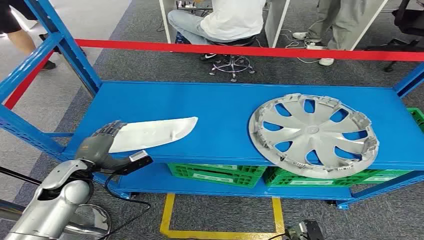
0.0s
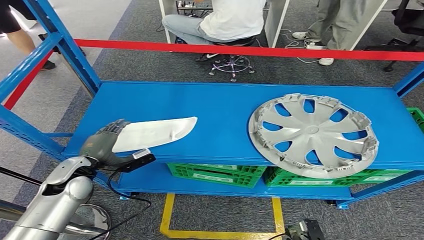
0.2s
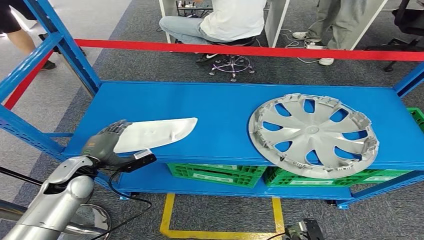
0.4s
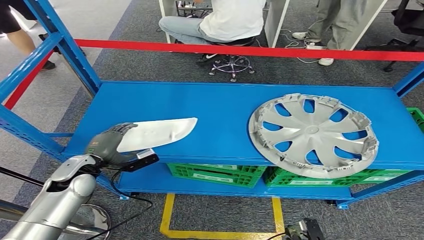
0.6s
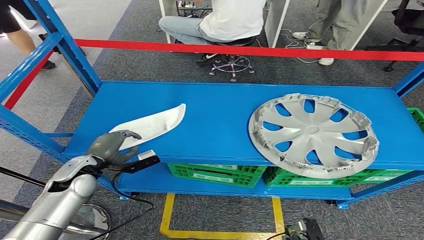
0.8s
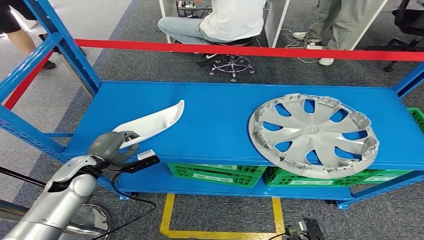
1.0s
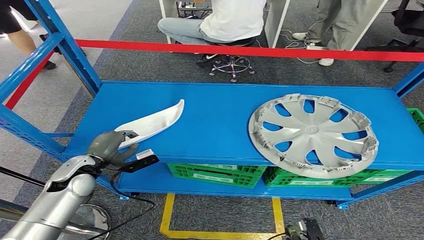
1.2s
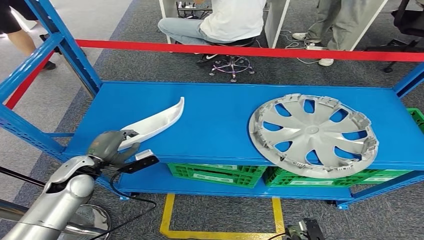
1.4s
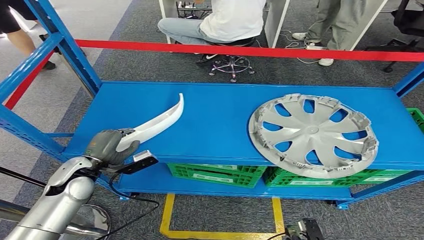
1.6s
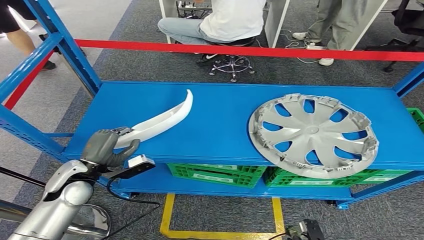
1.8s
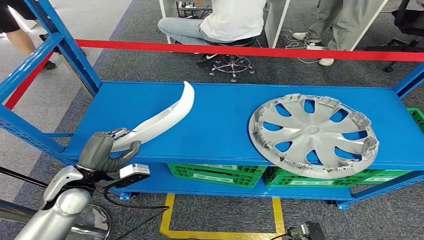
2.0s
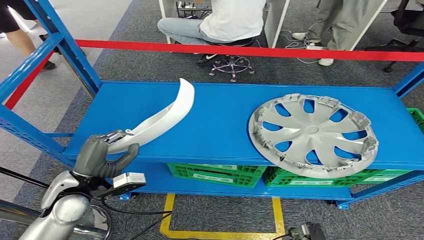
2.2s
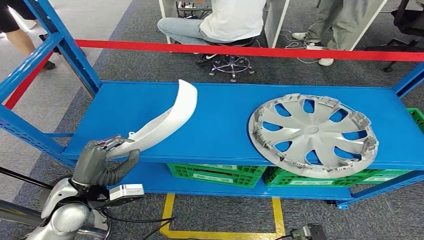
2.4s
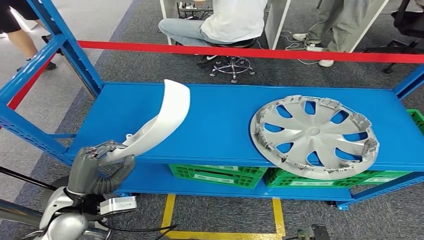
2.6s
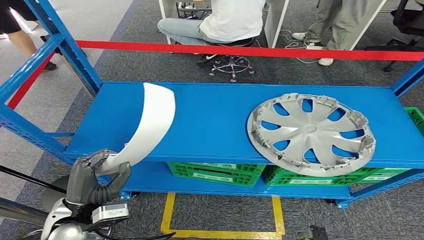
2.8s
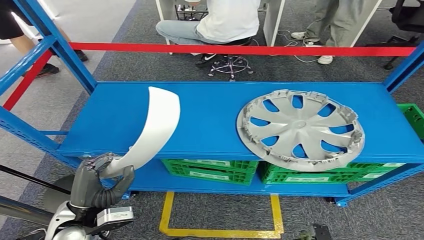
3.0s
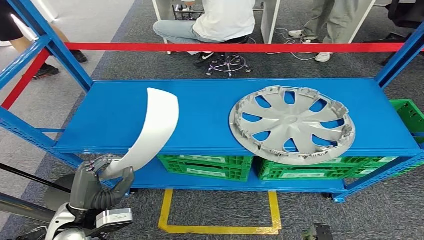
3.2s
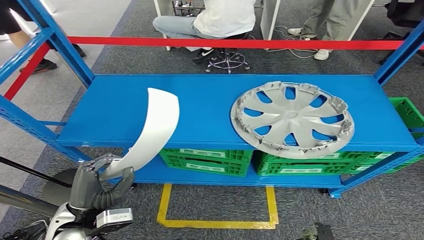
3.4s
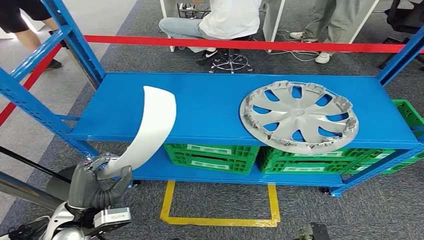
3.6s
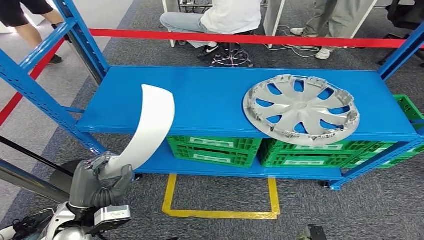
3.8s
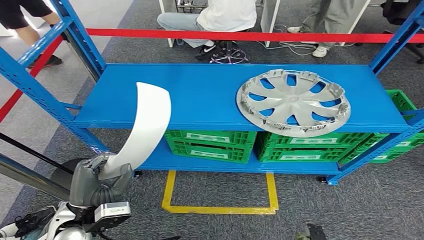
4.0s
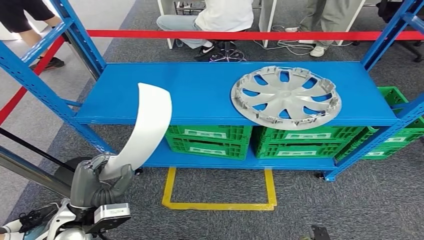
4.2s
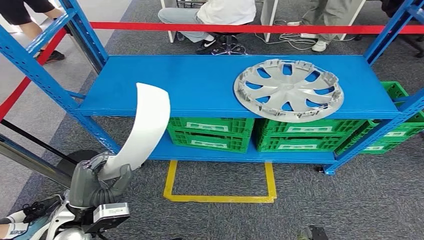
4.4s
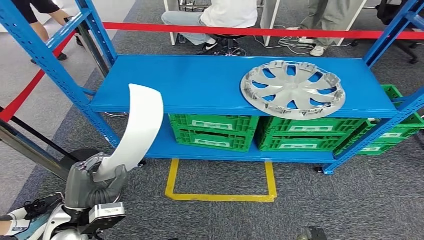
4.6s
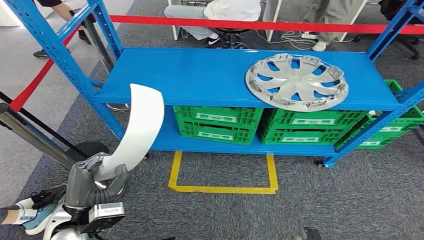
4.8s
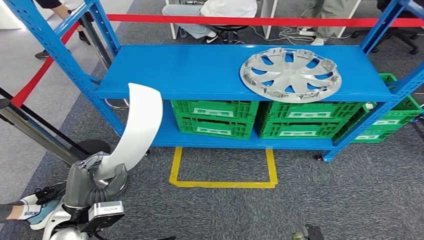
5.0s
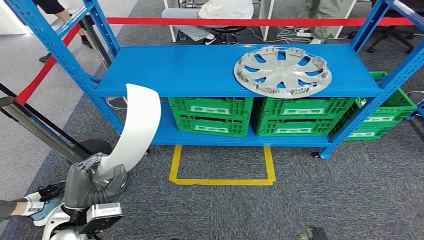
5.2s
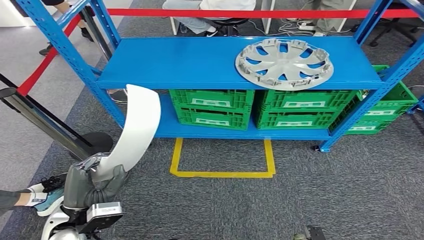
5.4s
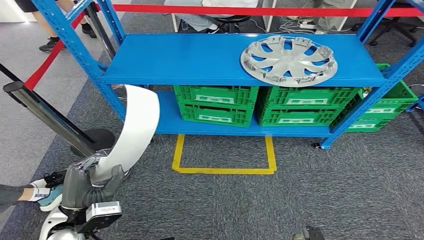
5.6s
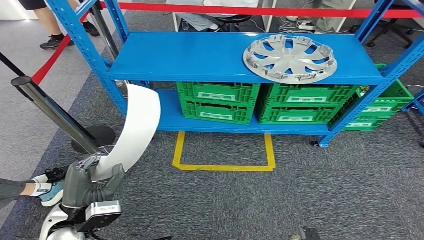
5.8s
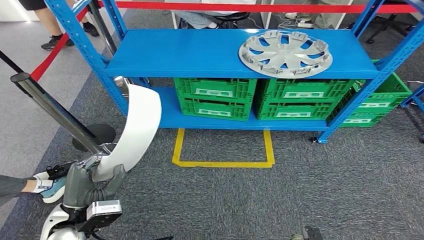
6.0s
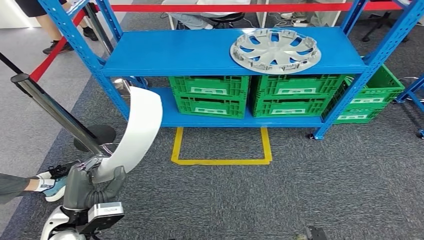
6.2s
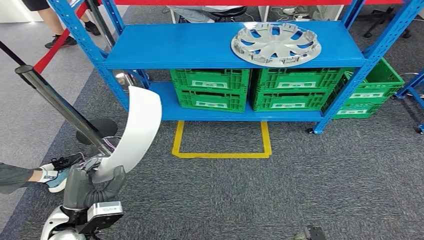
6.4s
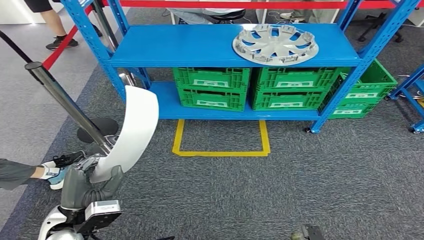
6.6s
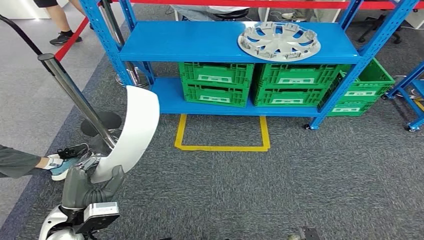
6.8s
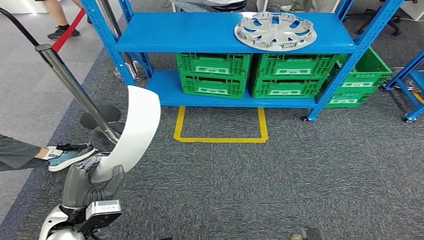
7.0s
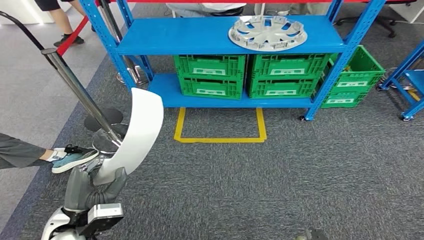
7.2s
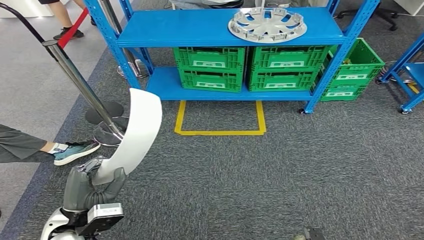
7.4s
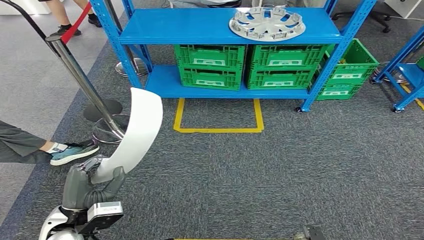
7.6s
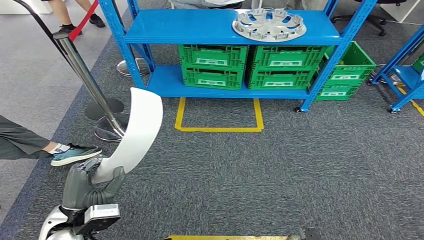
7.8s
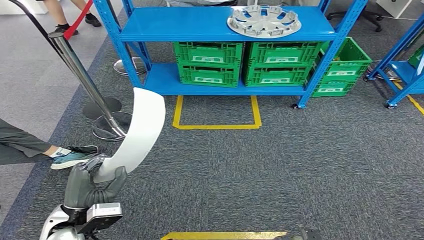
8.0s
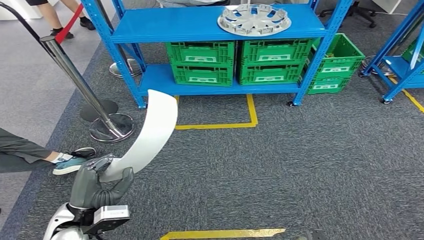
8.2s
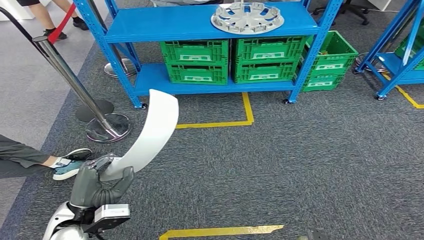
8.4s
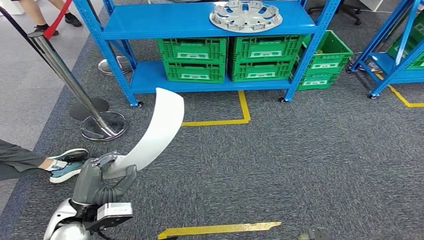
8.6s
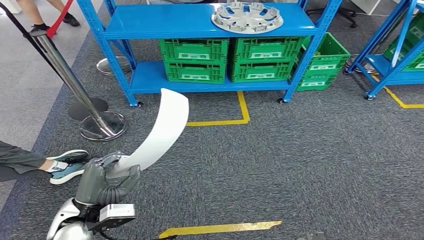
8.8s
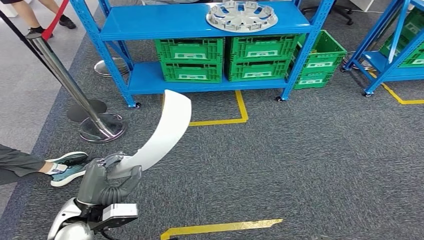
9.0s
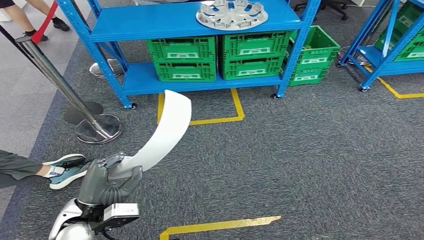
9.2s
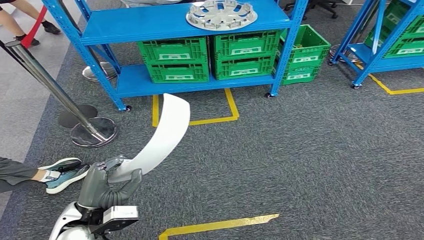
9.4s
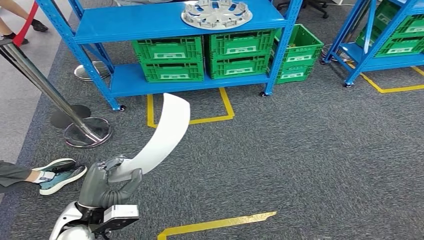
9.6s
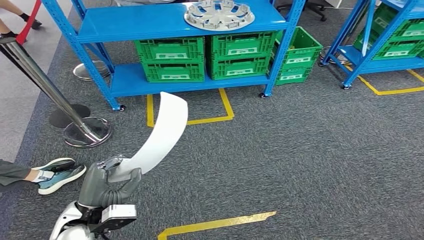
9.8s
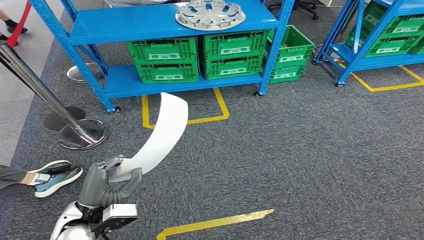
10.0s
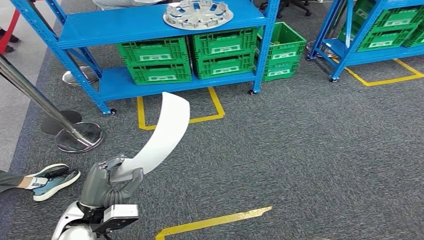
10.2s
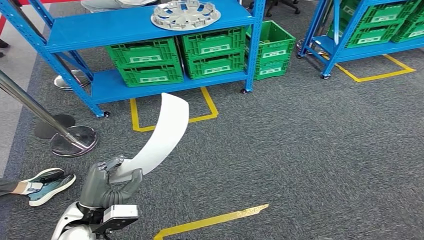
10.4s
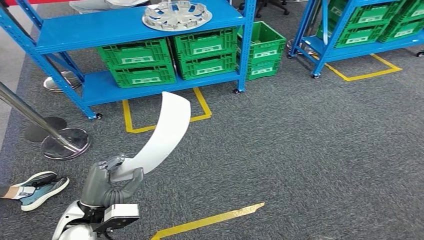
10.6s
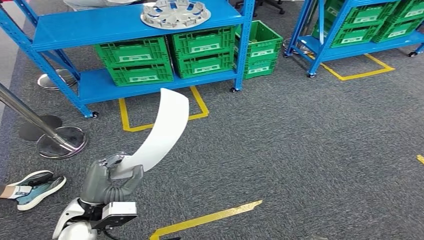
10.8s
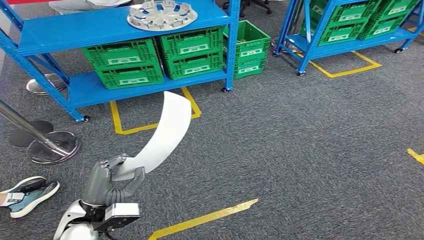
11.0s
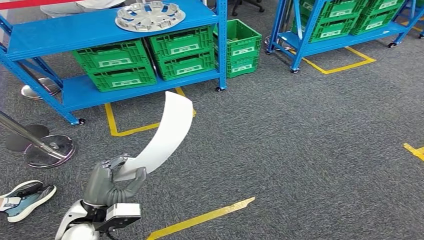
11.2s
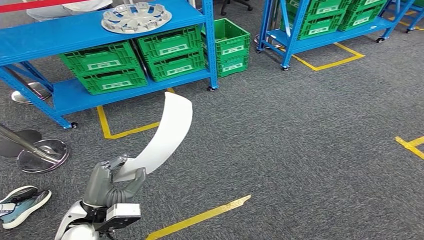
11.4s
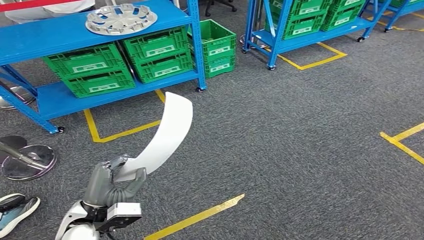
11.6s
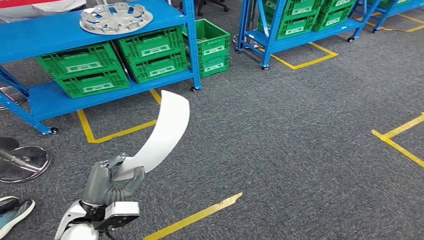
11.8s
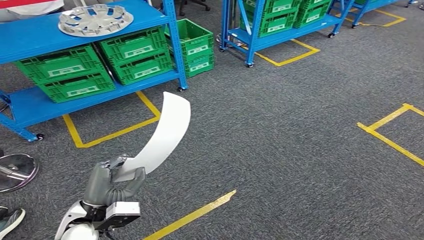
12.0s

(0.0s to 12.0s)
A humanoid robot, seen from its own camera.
Step, 0.0s - 5.4s: Pick up the small parts from the shelf.

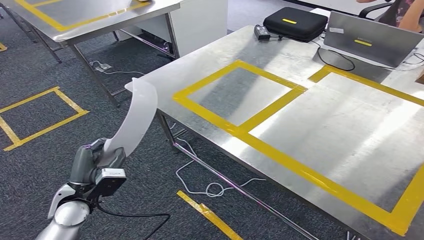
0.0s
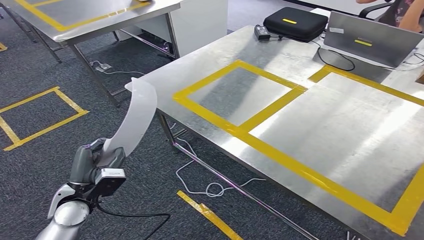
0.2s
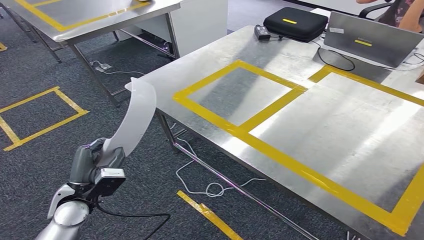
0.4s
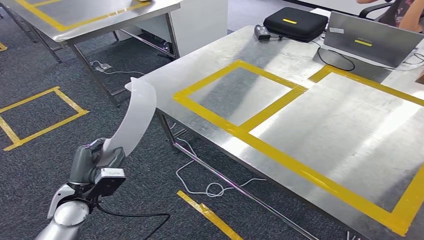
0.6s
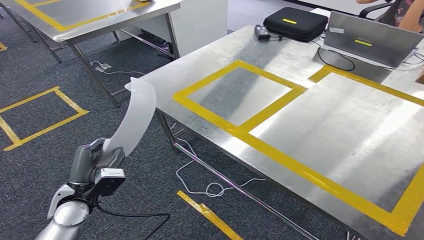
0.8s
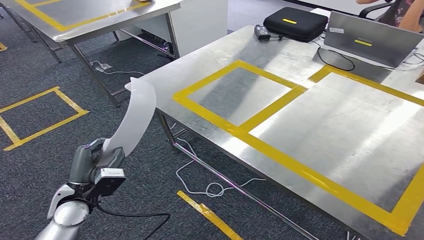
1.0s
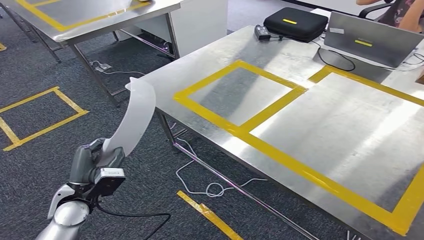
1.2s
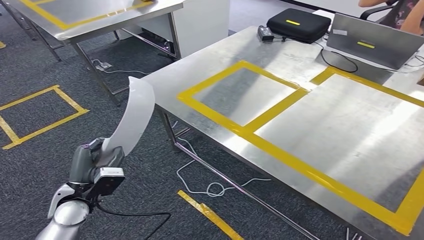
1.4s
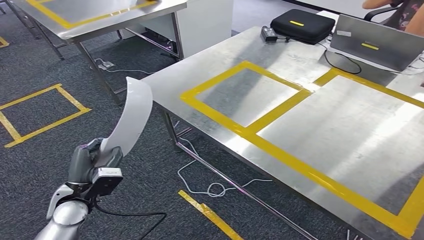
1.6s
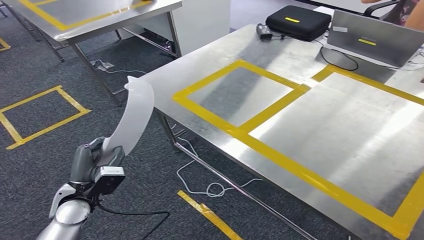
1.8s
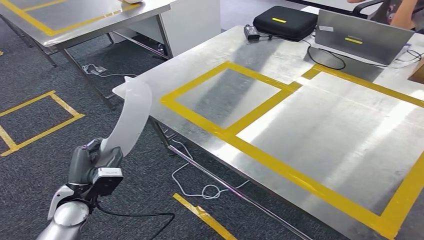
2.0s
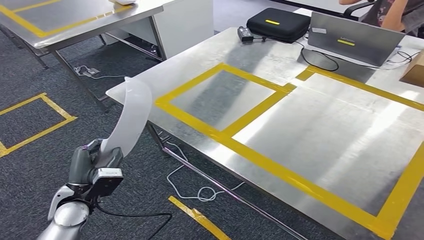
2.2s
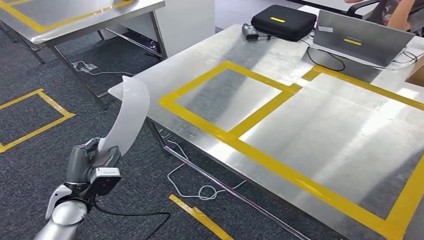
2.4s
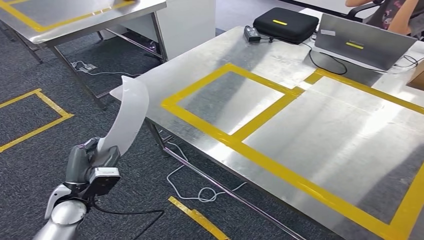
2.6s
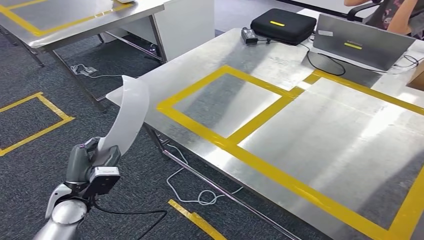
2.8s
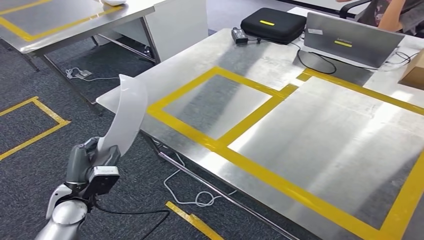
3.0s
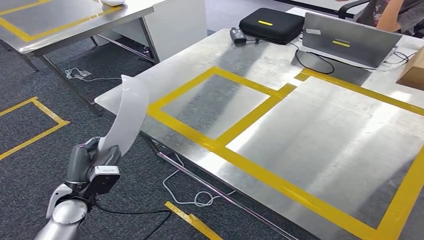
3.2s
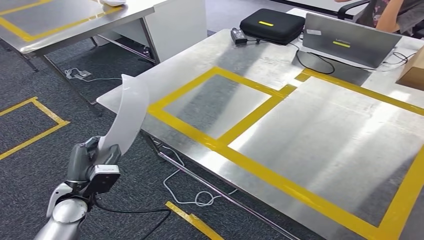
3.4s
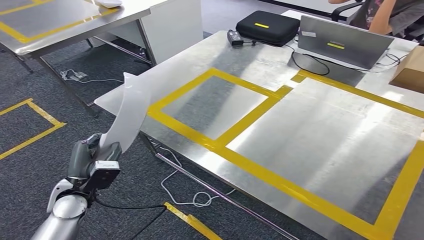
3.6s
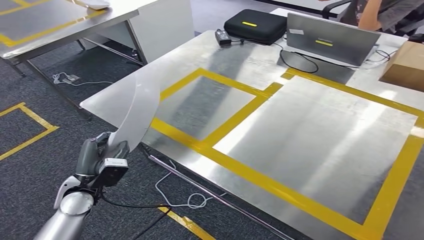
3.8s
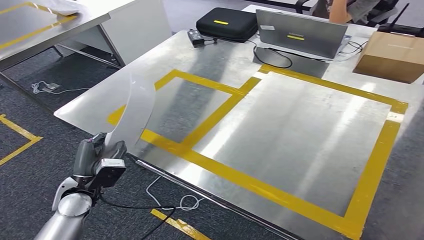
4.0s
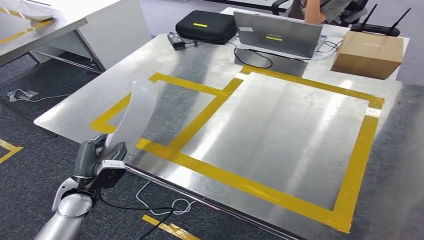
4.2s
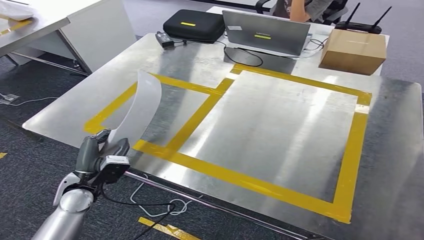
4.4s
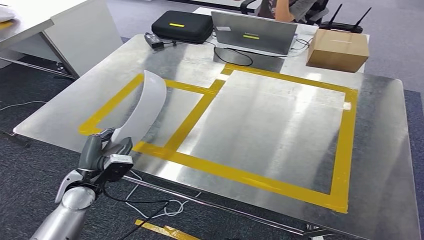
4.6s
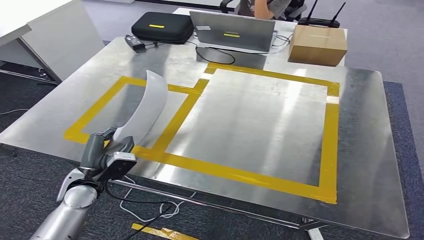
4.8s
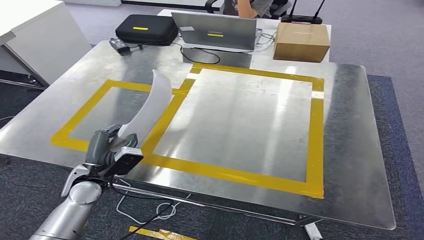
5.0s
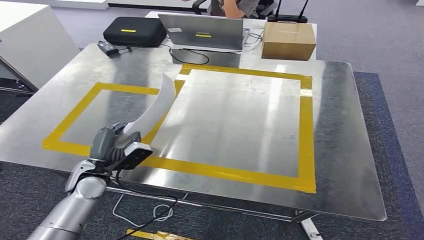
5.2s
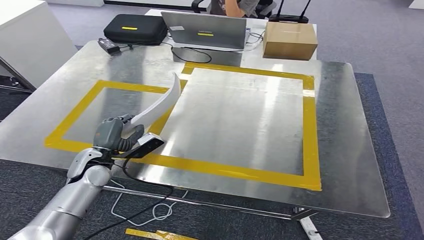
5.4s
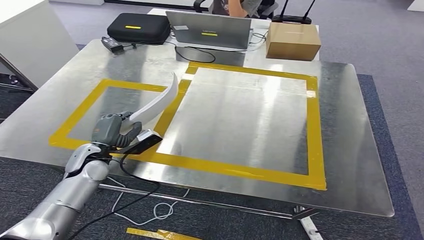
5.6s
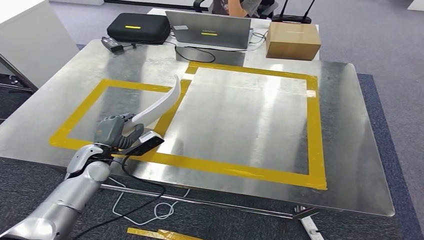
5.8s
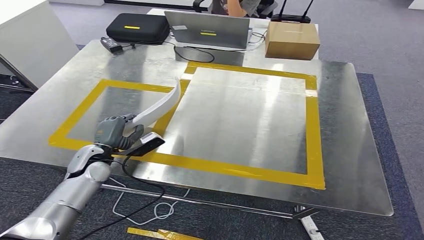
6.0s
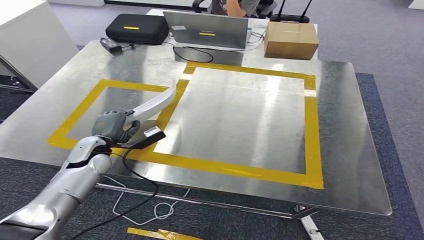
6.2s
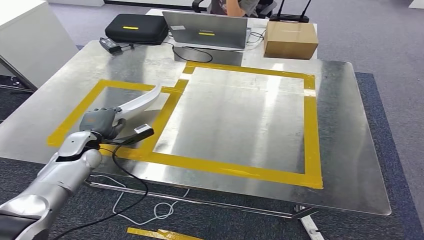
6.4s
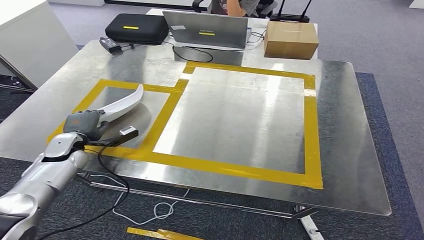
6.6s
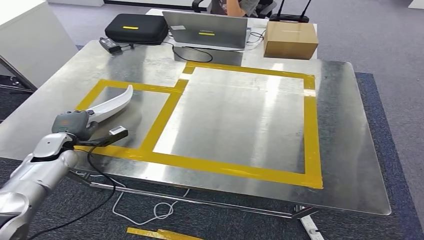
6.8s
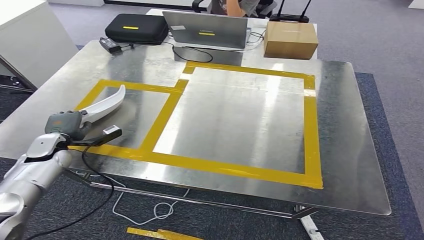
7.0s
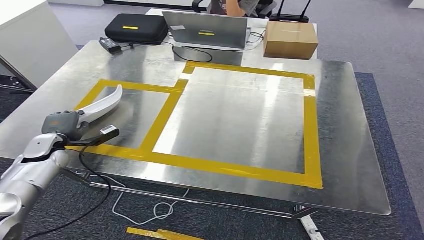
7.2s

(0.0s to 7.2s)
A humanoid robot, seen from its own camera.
0.0s - 1.4s: The two hands keep their place.
5.8s - 7.2s: The left hand travels to the left by approximately 15 cm.
